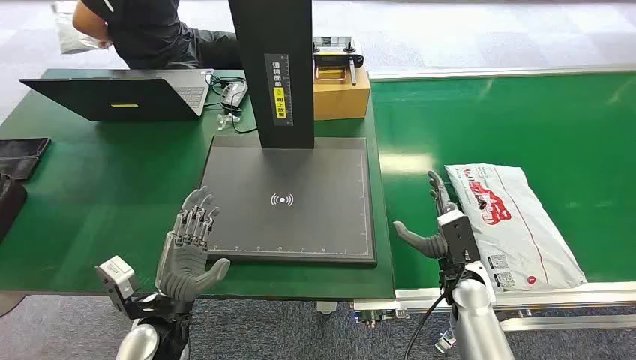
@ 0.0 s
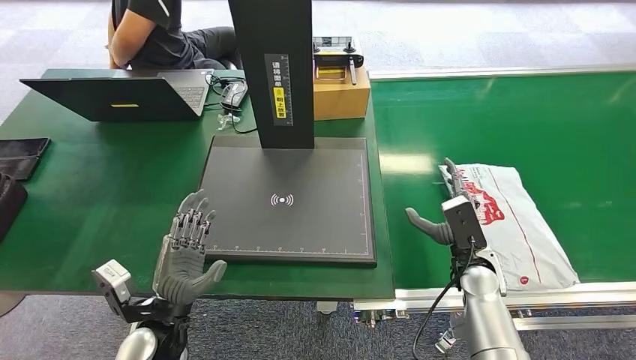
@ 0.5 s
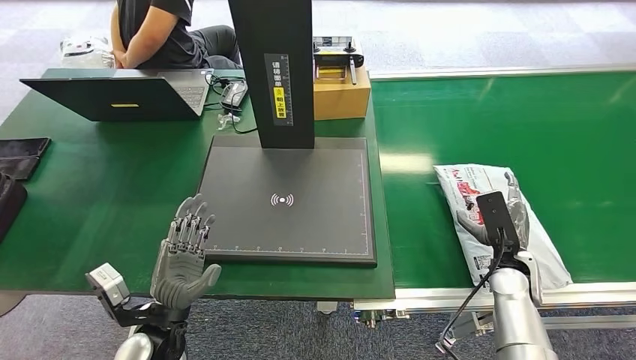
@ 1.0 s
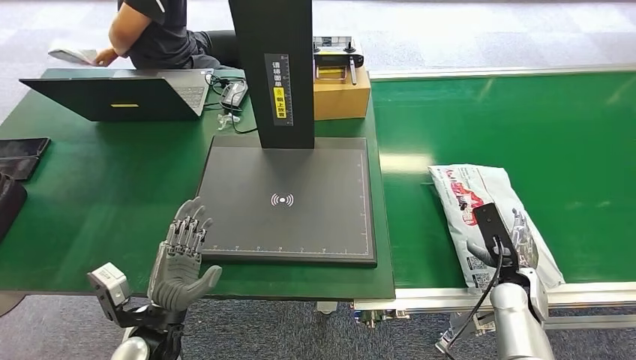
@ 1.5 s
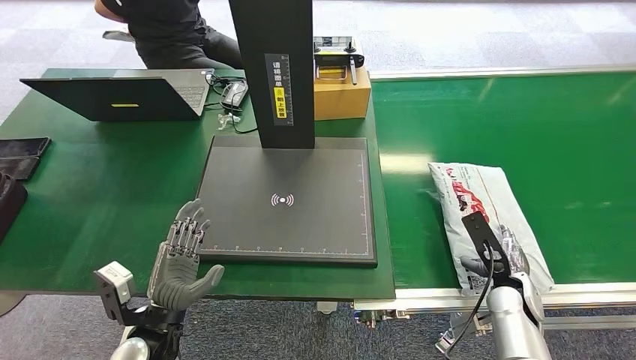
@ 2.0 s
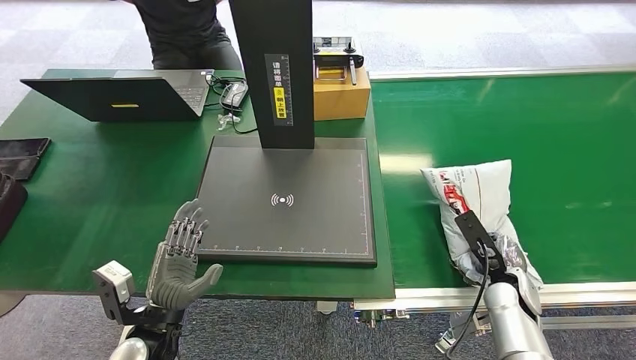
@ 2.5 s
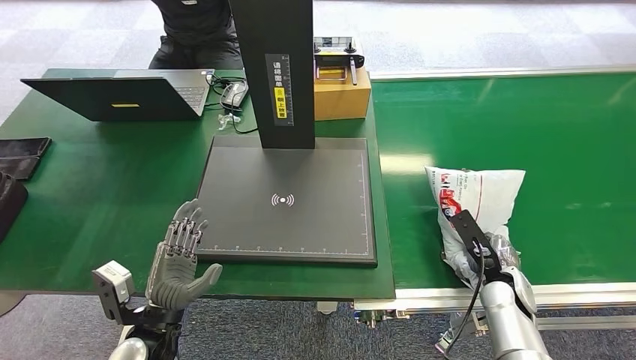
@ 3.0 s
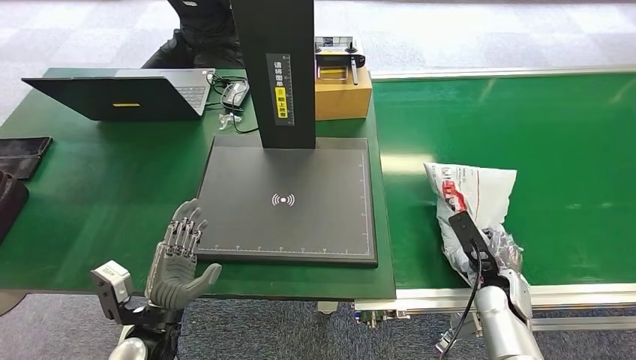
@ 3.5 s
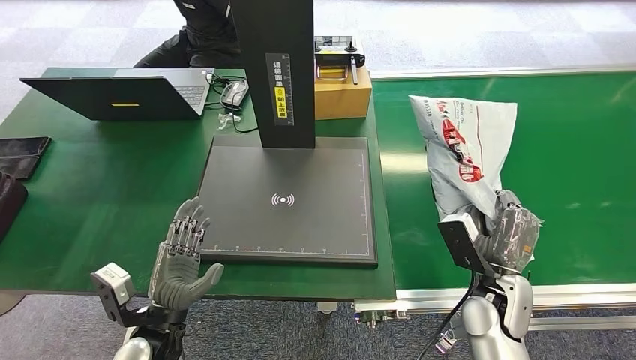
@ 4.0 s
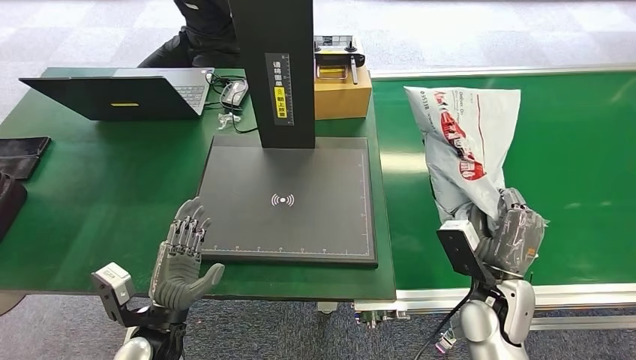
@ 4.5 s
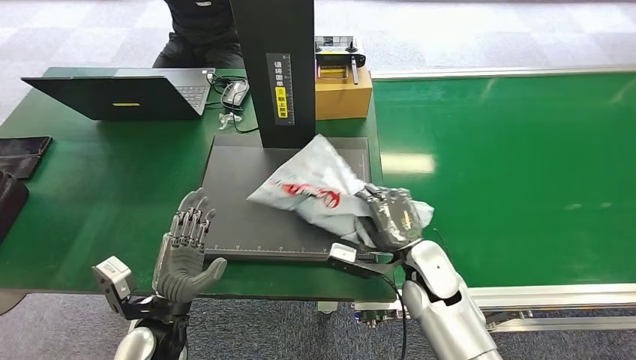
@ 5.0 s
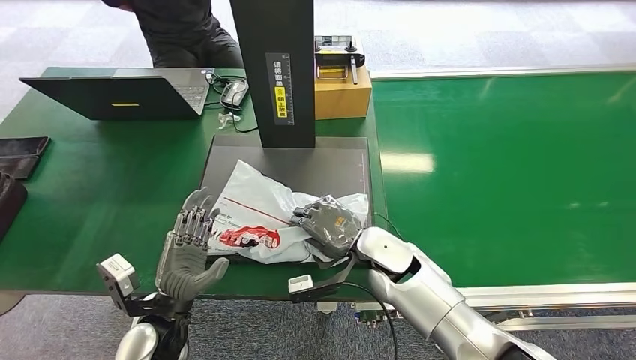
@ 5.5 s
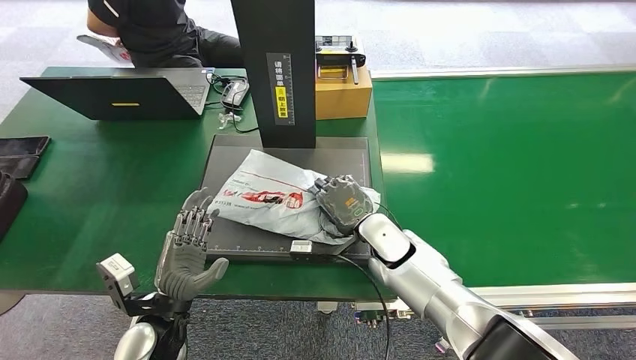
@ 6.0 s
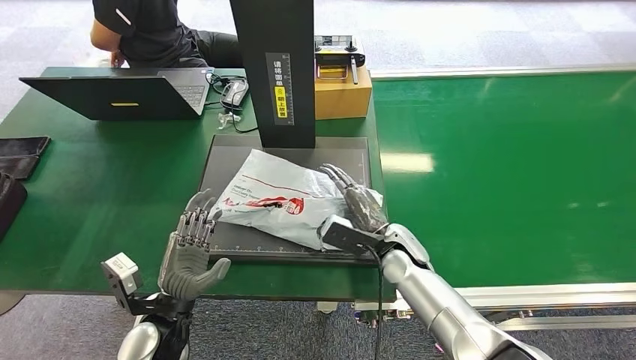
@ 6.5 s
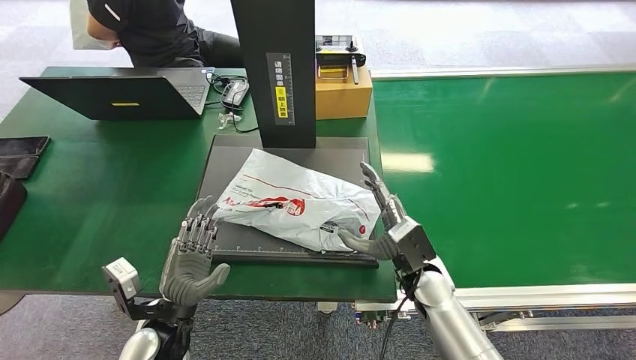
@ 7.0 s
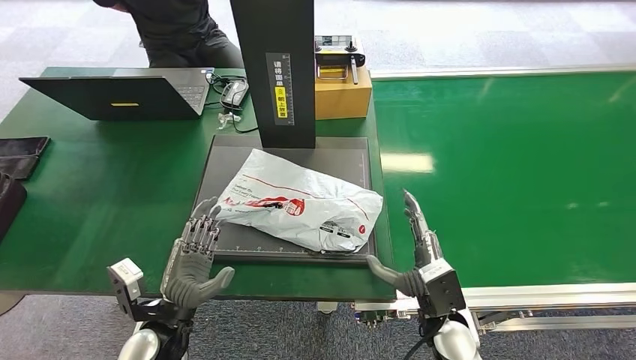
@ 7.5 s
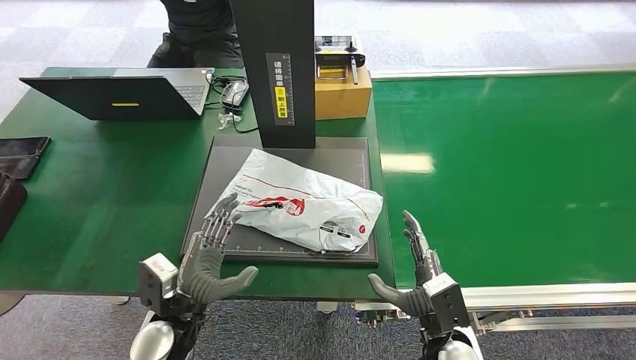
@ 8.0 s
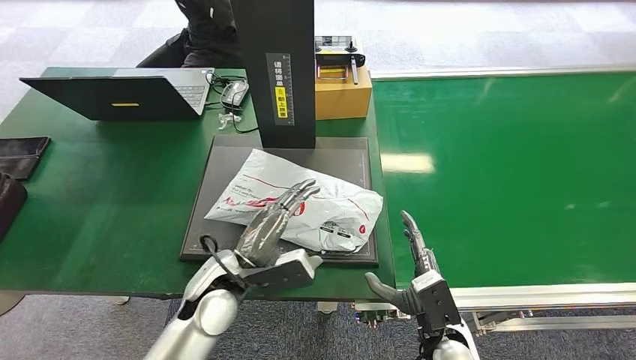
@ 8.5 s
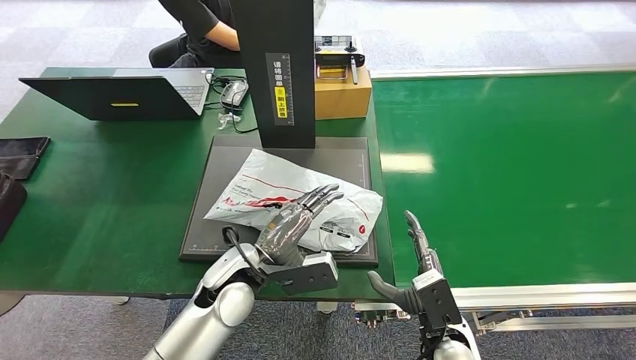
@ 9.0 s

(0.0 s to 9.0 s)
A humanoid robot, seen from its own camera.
Step, 0.0 s - 3.5 s: Pick up the package from the conveyor belt.
Step, 4.0 s - 7.5 s: Place the package onto the inbound machine.
2.0 s - 4.5 s: The right hand shifts approximately 10 cm to the left and upward.
7.0 s - 9.0 s: The right hand heads backward, covering roughly 10 cm, while the left hand heads to the right, forward and upward, covering roughly 15 cm.

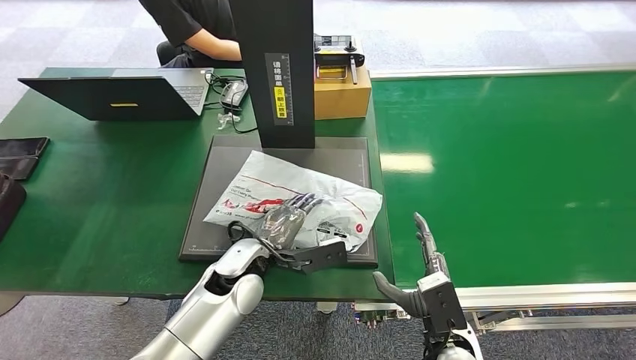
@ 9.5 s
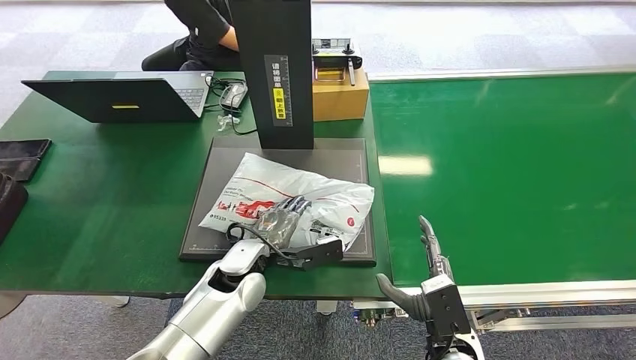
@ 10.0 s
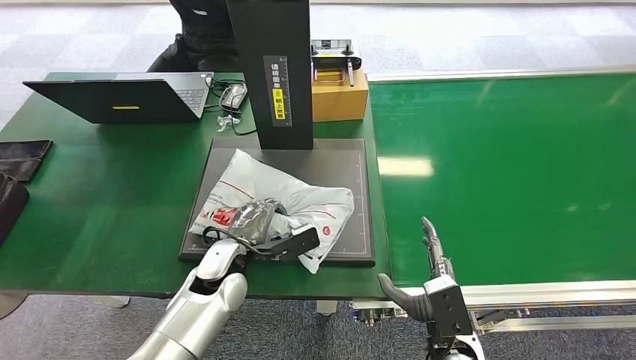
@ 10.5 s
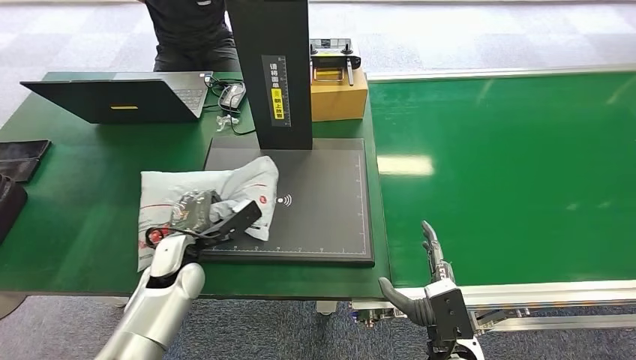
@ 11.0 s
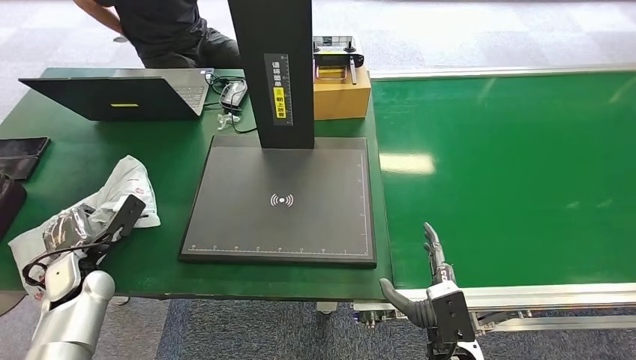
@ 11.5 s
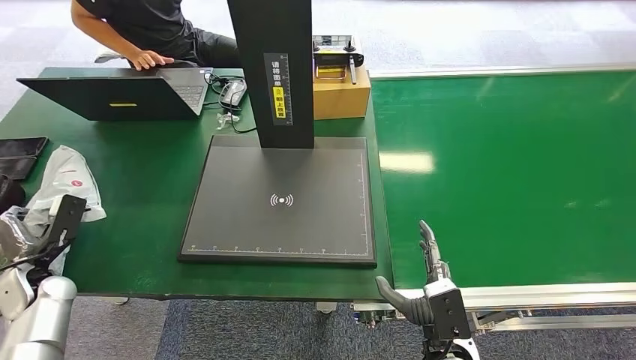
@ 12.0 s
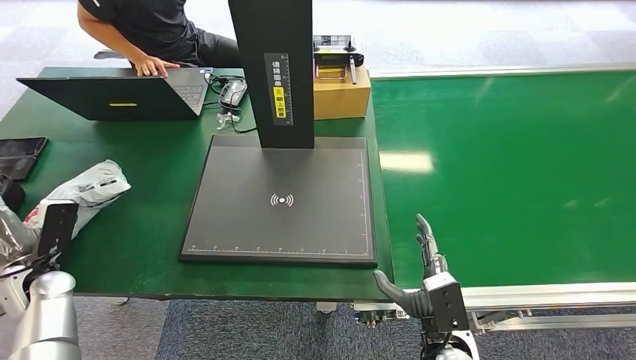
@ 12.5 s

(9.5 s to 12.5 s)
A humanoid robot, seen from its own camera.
Step, 11.5 s - 12.5 s: Place the package into the parcel locker.
